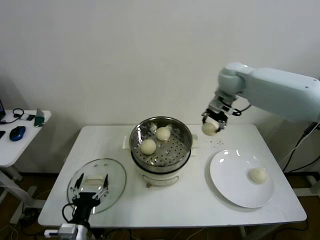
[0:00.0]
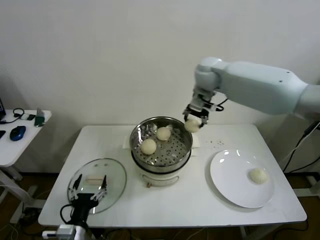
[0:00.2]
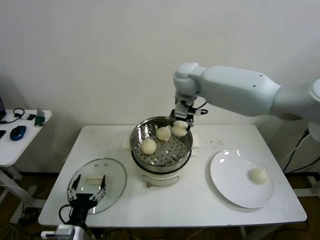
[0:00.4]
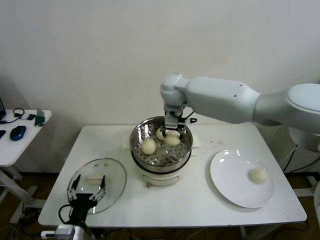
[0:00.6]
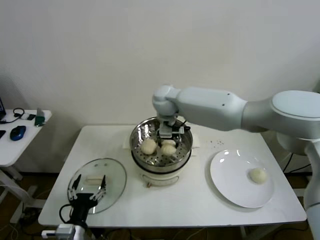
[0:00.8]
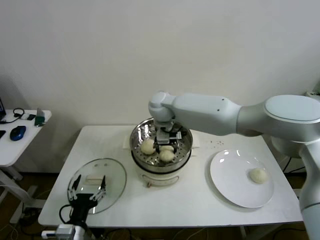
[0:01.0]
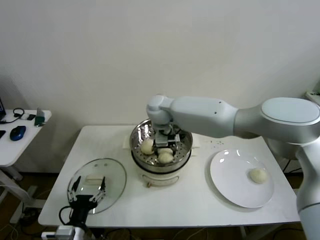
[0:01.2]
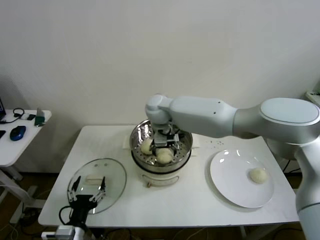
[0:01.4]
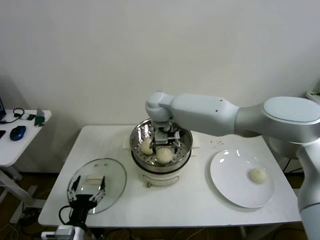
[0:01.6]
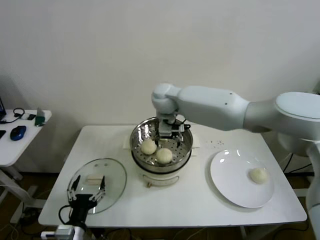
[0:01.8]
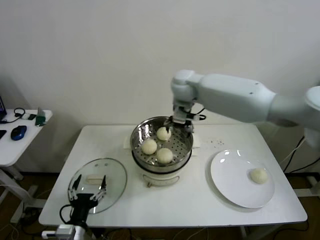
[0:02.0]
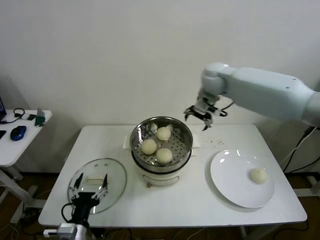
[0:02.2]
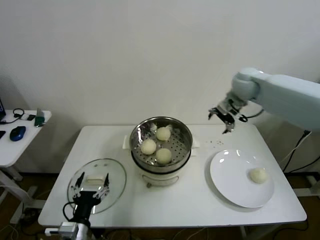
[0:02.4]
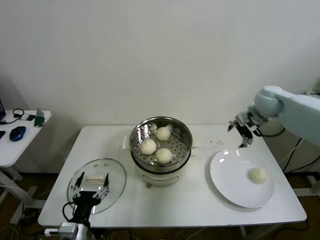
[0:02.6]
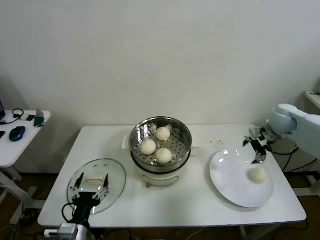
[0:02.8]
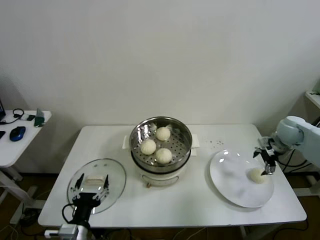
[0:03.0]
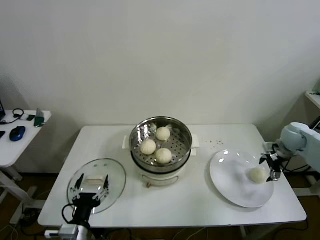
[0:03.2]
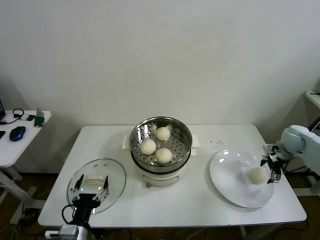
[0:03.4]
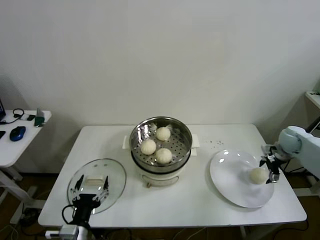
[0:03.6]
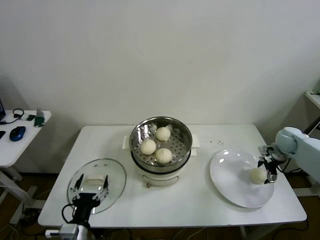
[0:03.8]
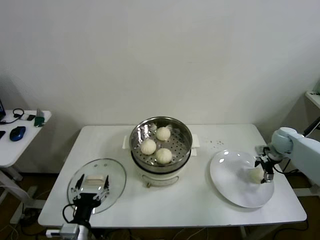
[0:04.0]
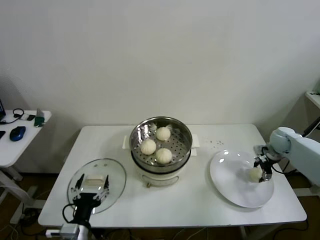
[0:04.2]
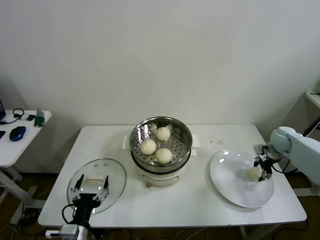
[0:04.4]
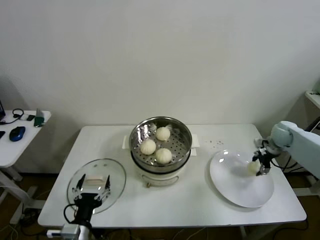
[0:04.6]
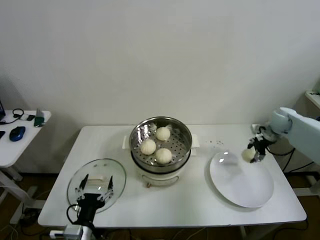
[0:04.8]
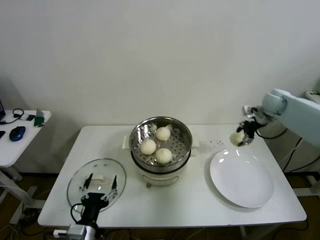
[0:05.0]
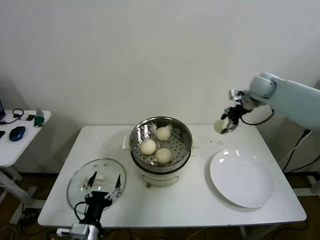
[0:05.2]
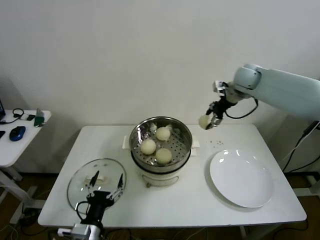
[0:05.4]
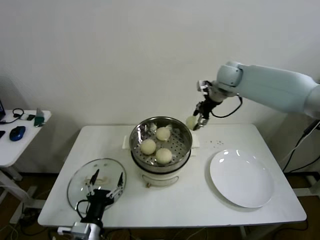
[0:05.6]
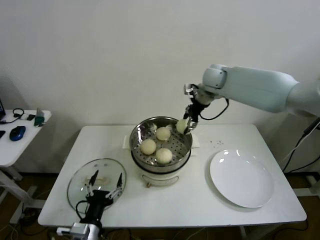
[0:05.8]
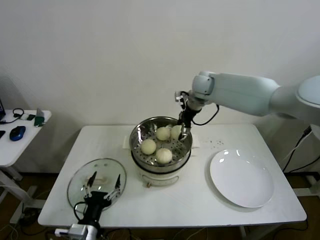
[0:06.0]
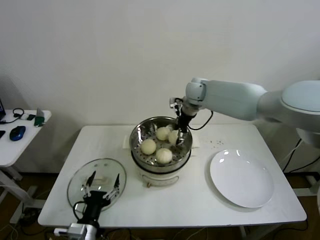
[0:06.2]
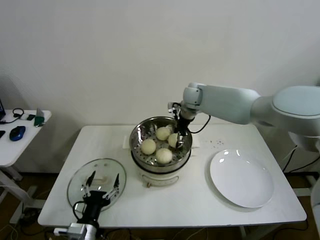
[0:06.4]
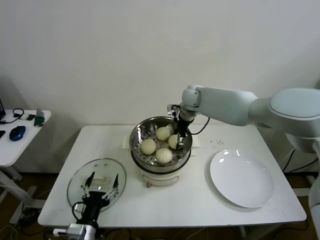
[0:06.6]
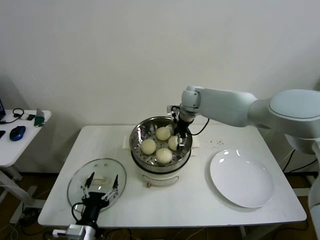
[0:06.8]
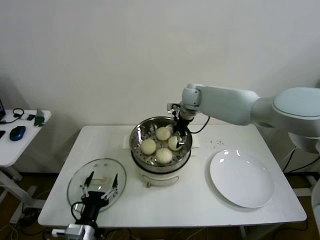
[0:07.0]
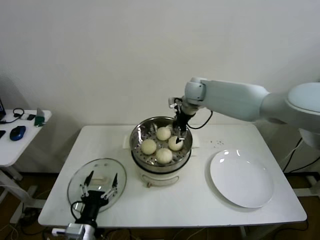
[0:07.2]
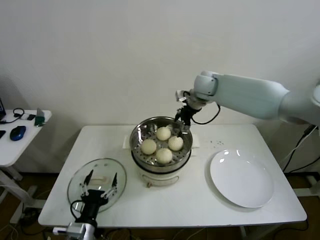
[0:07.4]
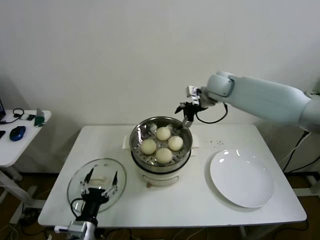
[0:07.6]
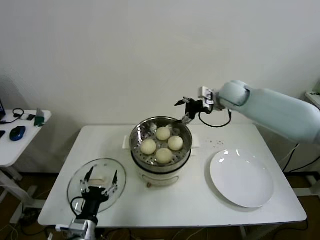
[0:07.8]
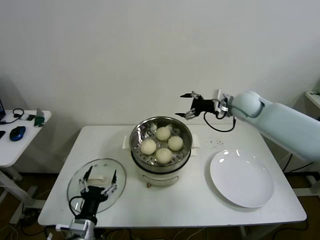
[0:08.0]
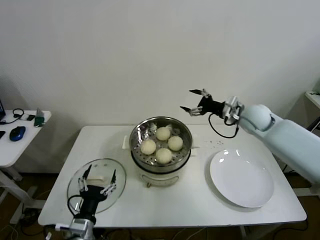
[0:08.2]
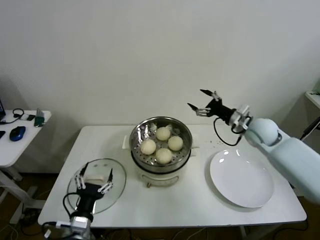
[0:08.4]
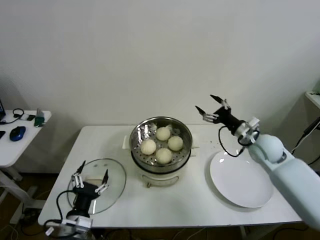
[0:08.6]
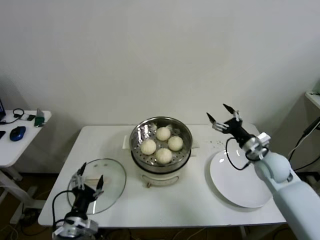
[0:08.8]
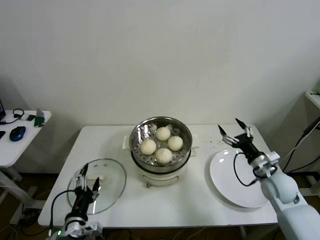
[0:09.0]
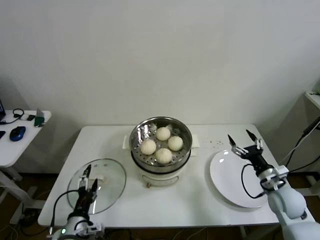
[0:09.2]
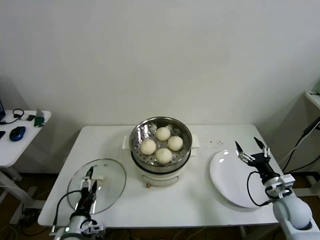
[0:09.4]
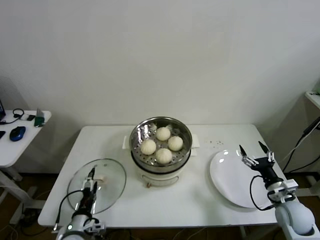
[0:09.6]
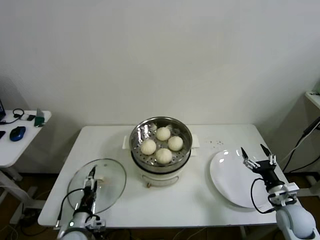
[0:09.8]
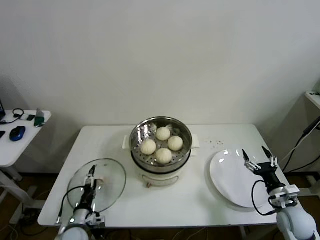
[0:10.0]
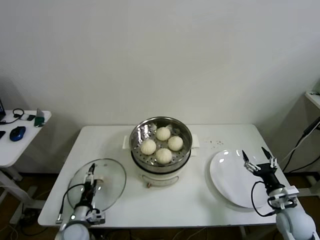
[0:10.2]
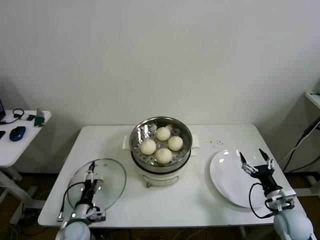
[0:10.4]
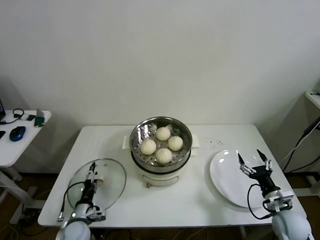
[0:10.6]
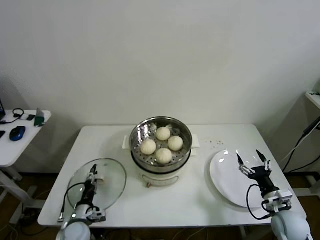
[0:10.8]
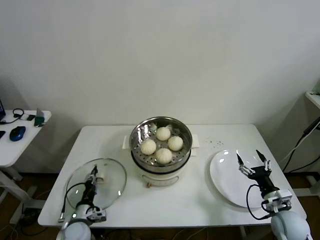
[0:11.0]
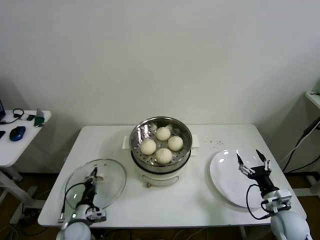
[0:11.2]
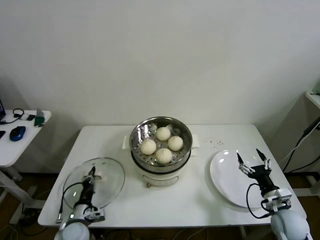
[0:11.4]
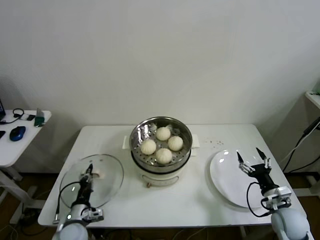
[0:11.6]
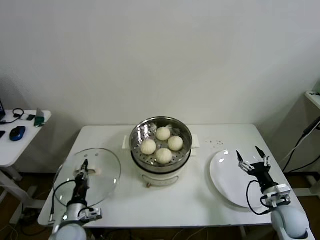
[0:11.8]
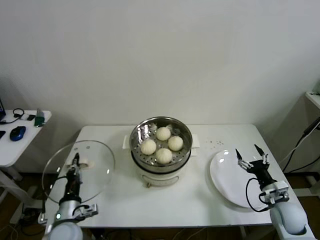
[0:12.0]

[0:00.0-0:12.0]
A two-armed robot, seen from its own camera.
Step, 0:00.0 to 0:01.2: Place the baozi on the steamer with right gripper.
Step, 0:01.4 to 0:04.2: Grasp the baozi in the plate with right gripper.
Step, 0:04.4 to 0:06.6: Place the baozi on the steamer with right gripper.
Step, 0:06.8 to 0:11.0: Grasp the pot lid with left gripper.
0:00.0 to 0:01.6: The right gripper heads to the left, covering some 20 cm, and opens.
0:01.6 to 0:03.0: The right gripper heads to the right, covering about 50 cm.
0:03.0 to 0:04.4: The right gripper travels downward by roughly 5 cm, and closes.
0:04.4 to 0:06.0: The right gripper travels to the left and upward by about 40 cm.
0:06.0 to 0:07.6: The right gripper ends up roughly 5 cm from where it was, and opens.
0:07.6 to 0:09.0: The right gripper travels backward, downward and to the right by roughly 35 cm.
0:09.0 to 0:10.4: The left gripper moves downward and forward, roughly 15 cm; the right gripper goes about 10 cm backward and downward.
0:10.4 to 0:12.0: The left gripper goes approximately 10 cm upward, and closes up.

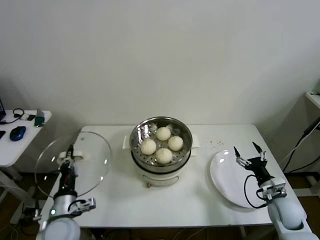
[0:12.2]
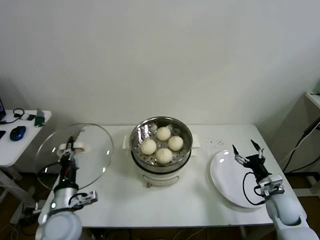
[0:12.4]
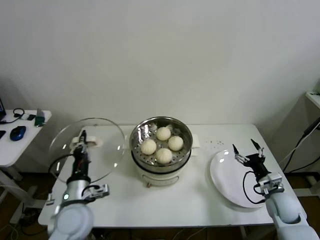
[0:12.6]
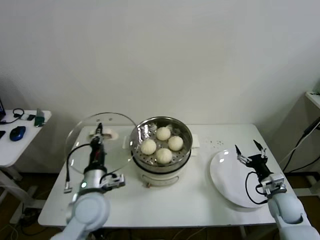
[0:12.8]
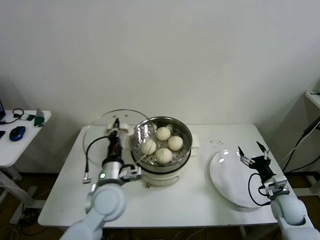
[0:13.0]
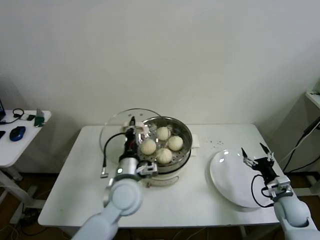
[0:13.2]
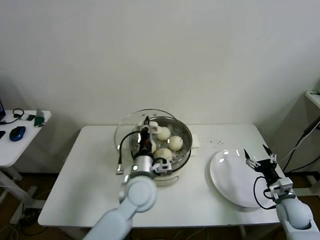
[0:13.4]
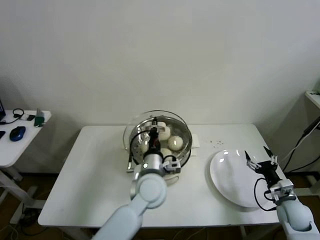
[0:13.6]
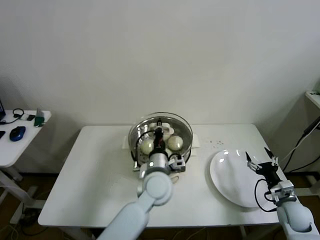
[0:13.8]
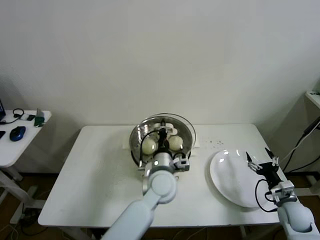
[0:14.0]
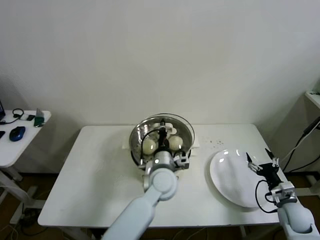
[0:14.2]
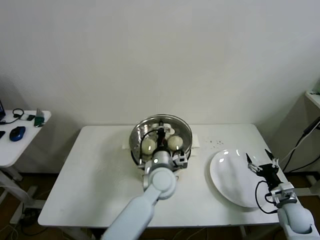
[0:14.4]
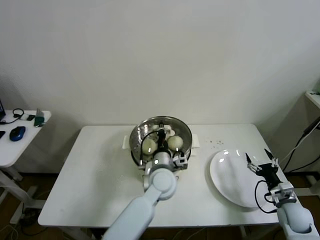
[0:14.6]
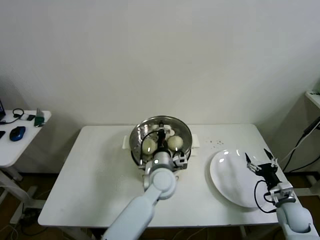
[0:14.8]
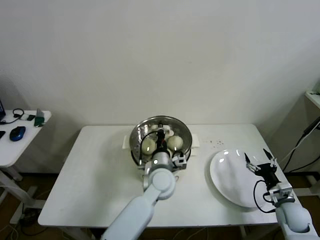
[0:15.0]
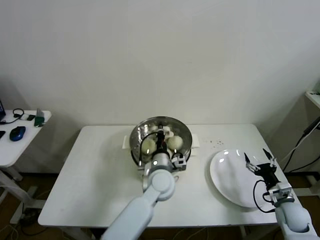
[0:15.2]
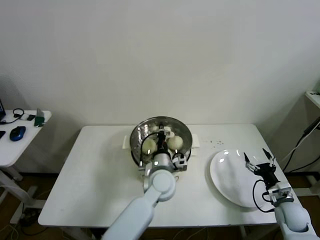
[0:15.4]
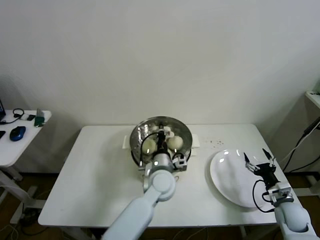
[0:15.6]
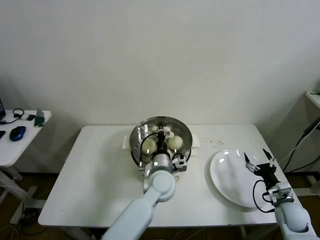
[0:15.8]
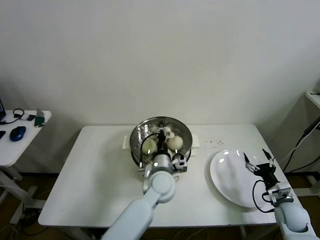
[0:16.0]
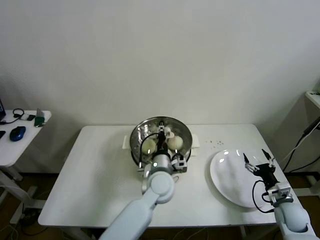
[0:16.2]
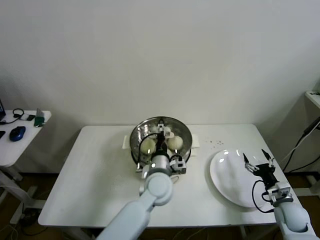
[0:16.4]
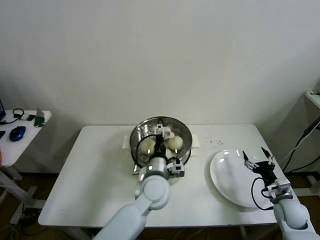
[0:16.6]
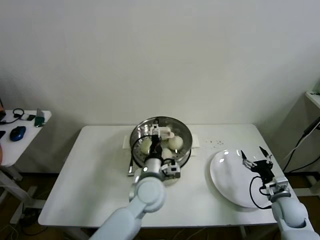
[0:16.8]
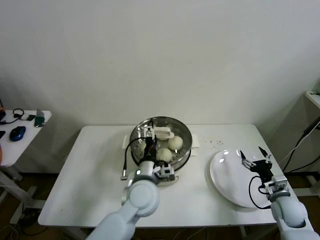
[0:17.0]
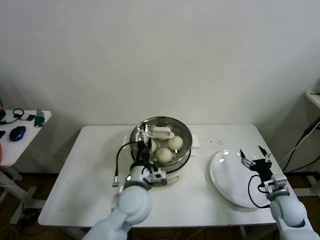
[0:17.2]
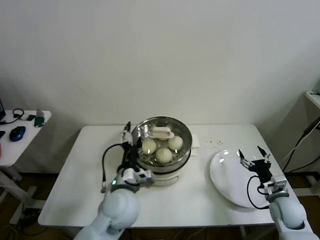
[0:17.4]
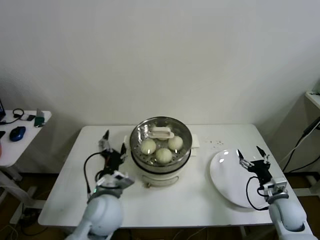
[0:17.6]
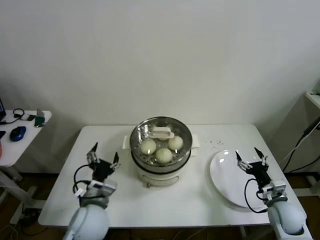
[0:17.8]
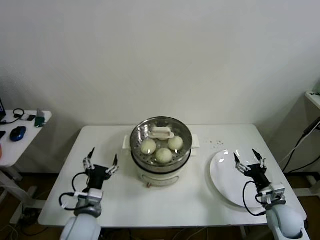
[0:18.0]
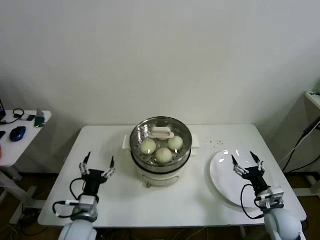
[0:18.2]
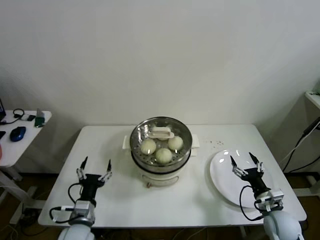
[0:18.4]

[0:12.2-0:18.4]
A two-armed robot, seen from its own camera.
Step, 0:12.2 to 0:15.8: Place the pot lid on the steamer with left gripper.
0:12.2 to 0:13.8: The left gripper heads to the right and forward, covering about 30 cm.
0:13.8 to 0:15.4: The grippers move only a little.
0:15.4 to 0:16.8: The left gripper moves about 5 cm, and opens its fingers.
0:16.8 to 0:18.4: The left gripper is displaced to the left and backward by roughly 25 cm. Meanwhile the right gripper shifts by roughly 5 cm.

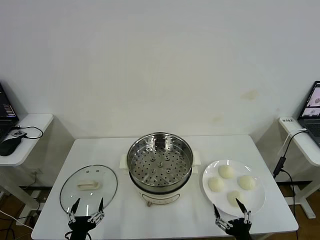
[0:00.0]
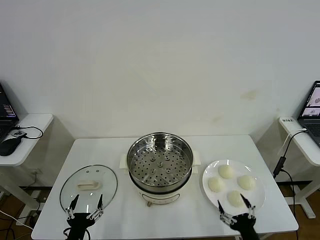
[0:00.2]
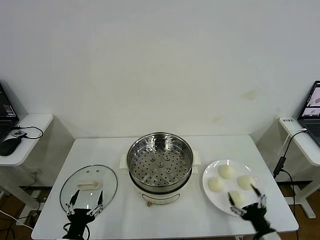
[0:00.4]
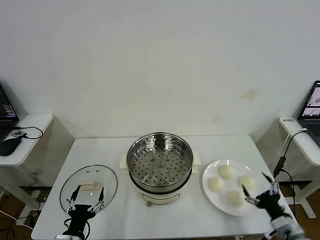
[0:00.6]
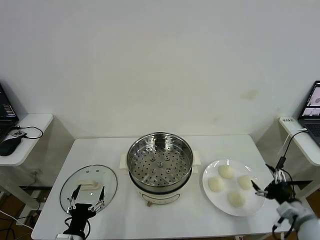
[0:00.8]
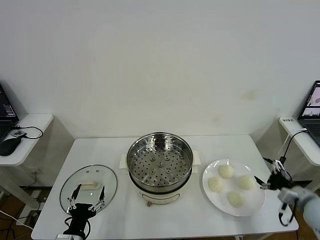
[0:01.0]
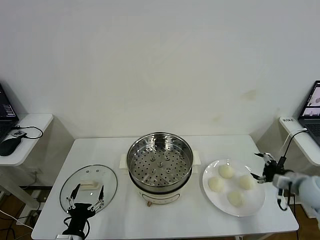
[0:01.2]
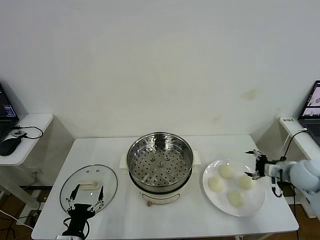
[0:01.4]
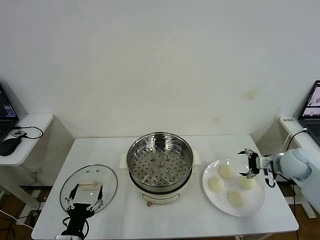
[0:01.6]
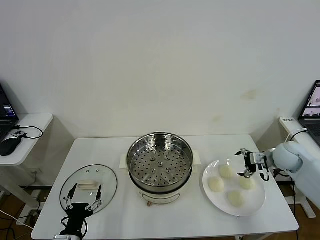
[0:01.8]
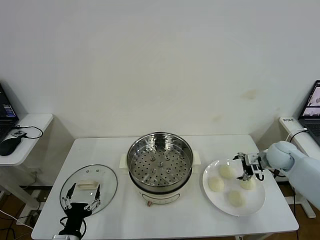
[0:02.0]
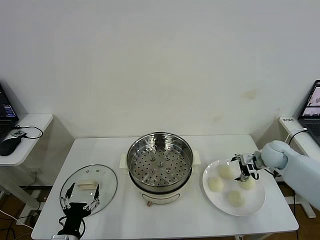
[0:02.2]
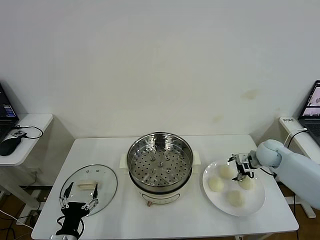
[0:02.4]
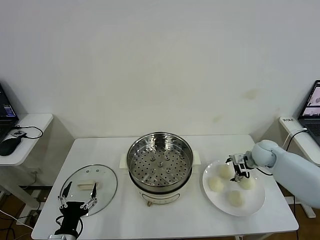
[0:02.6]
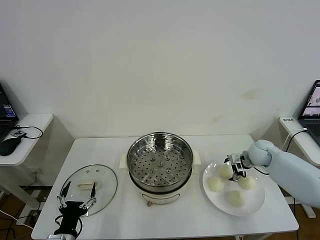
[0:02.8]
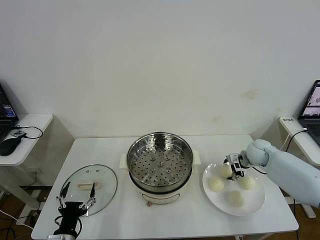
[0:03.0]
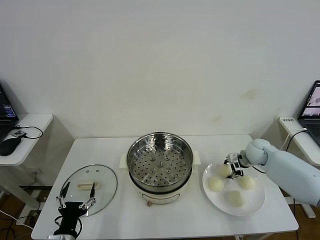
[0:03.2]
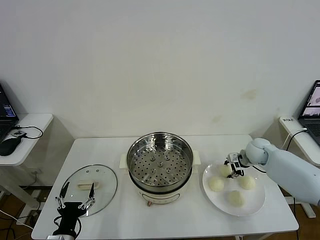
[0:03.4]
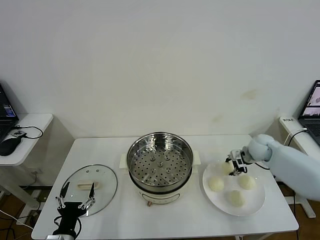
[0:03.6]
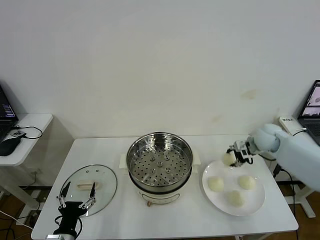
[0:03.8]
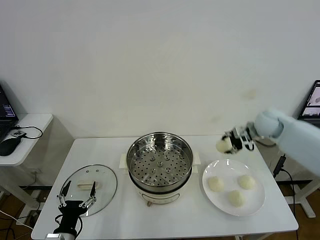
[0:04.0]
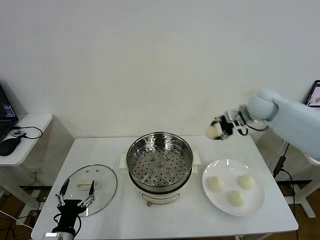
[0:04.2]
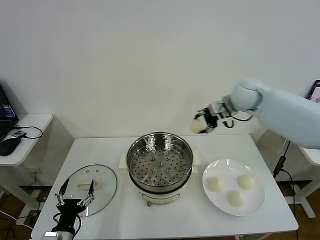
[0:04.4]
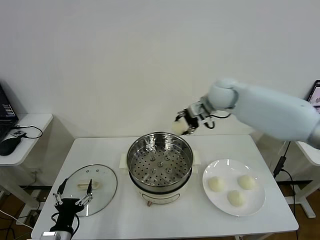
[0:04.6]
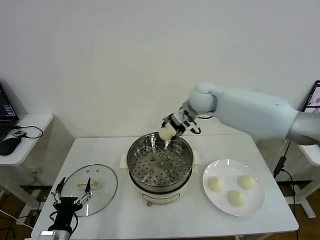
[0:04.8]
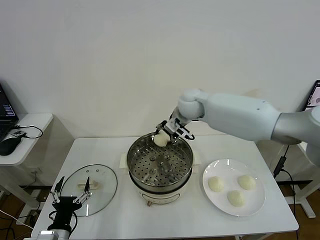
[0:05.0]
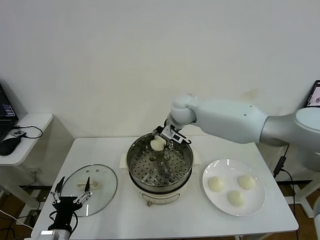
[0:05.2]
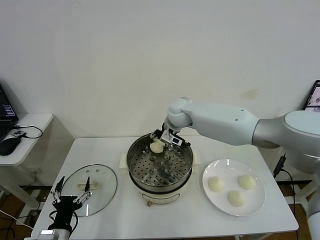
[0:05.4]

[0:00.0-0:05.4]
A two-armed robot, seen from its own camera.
Step, 0:00.0 to 0:03.0: Grasp the baozi in the plate with right gripper.
0:01.4 to 0:02.8: The right gripper goes approximately 15 cm forward, to the left and downward.
0:02.8 to 0:04.0: The right gripper travels upward by roughly 15 cm, and closes its fingers.
0:04.0 to 0:05.4: The right gripper moves to the left, roughly 30 cm.
